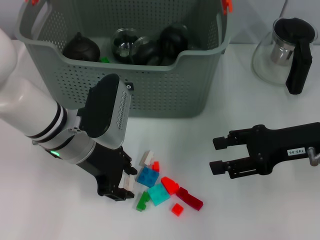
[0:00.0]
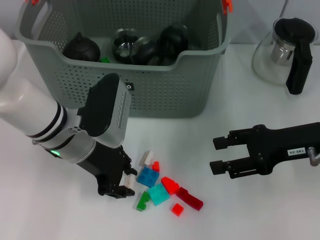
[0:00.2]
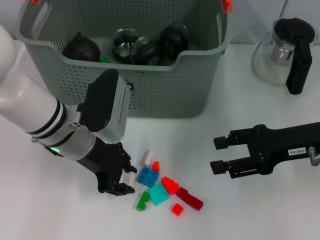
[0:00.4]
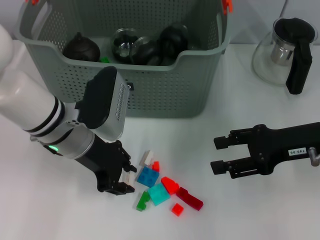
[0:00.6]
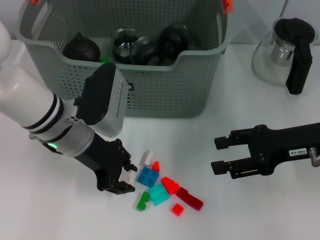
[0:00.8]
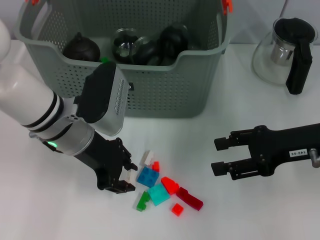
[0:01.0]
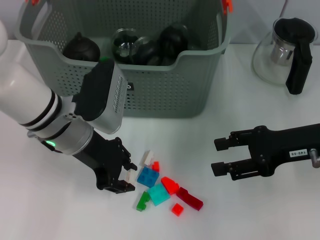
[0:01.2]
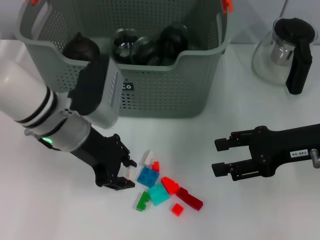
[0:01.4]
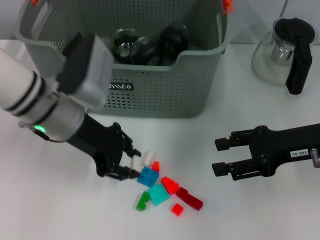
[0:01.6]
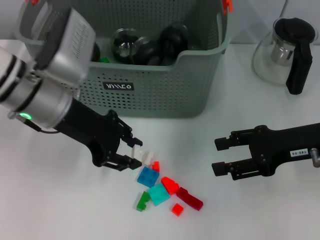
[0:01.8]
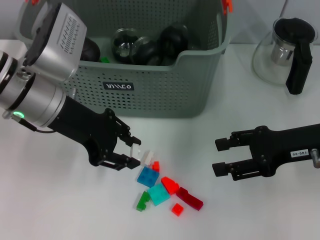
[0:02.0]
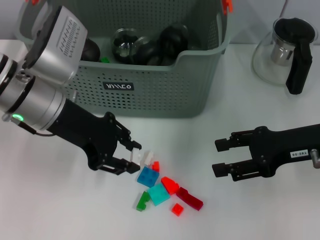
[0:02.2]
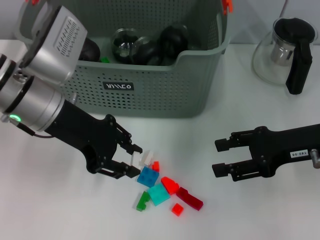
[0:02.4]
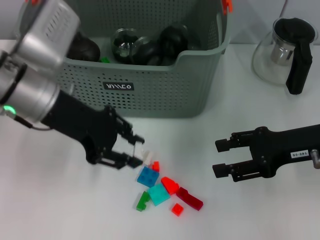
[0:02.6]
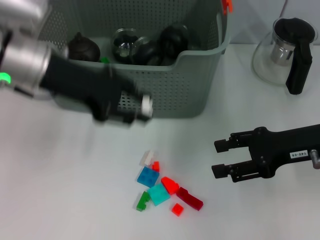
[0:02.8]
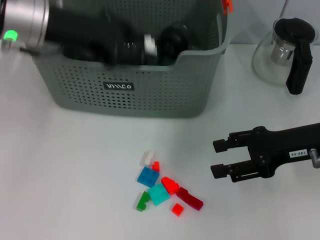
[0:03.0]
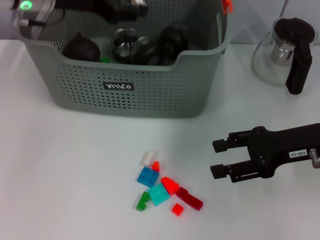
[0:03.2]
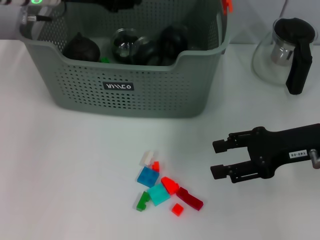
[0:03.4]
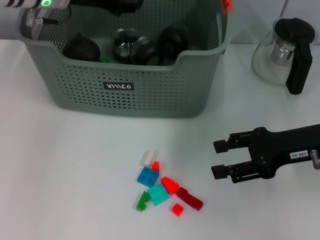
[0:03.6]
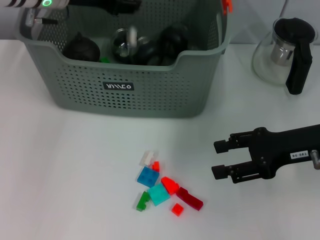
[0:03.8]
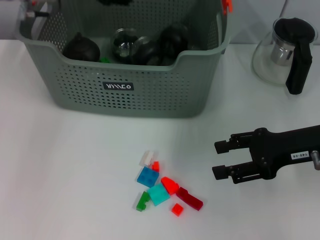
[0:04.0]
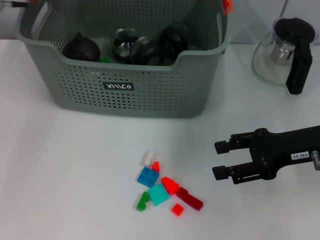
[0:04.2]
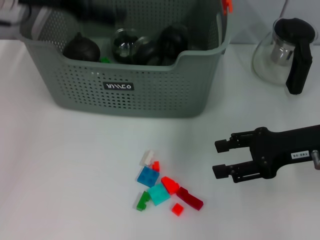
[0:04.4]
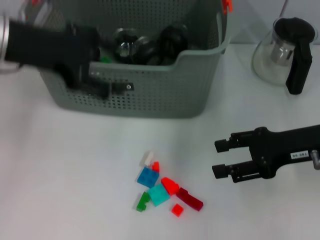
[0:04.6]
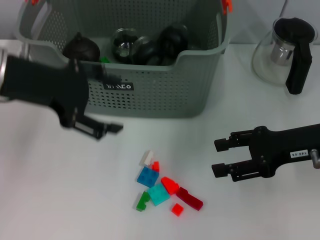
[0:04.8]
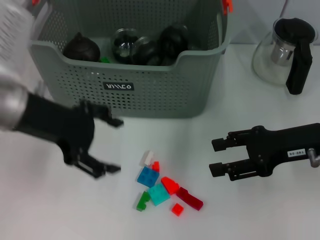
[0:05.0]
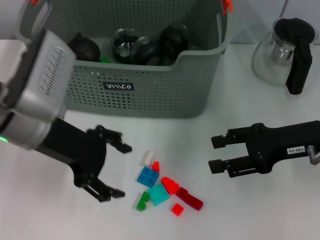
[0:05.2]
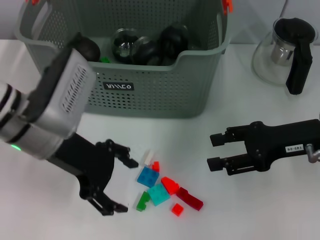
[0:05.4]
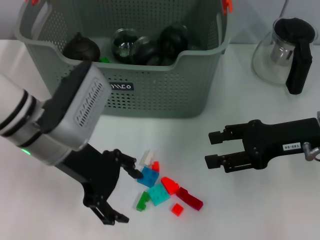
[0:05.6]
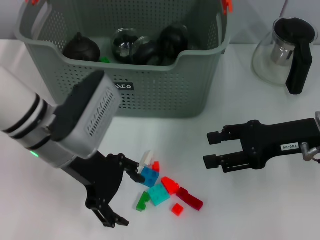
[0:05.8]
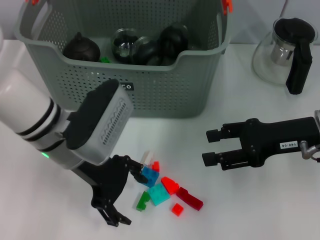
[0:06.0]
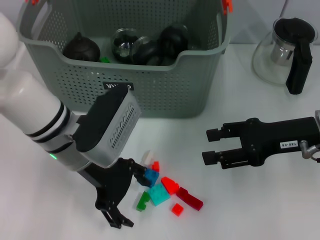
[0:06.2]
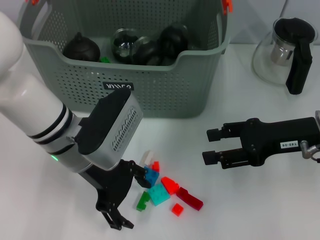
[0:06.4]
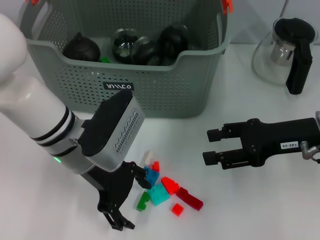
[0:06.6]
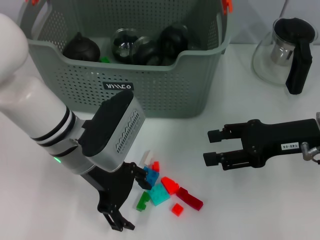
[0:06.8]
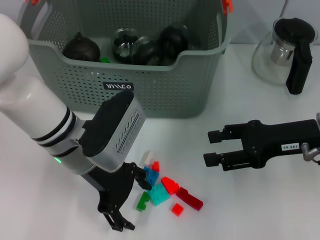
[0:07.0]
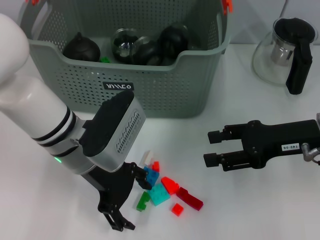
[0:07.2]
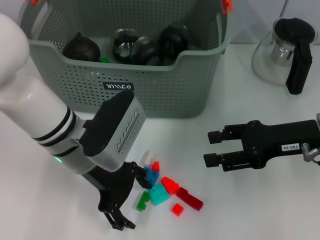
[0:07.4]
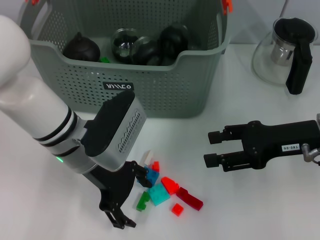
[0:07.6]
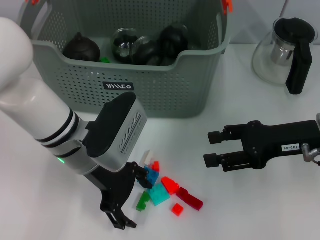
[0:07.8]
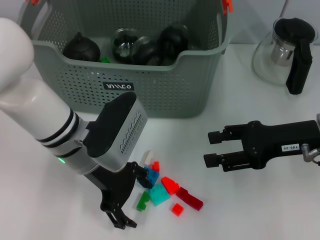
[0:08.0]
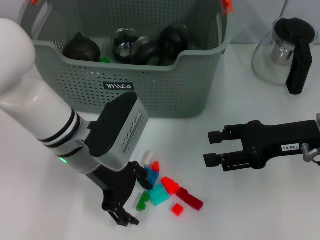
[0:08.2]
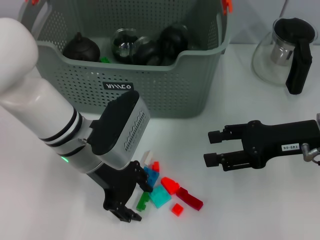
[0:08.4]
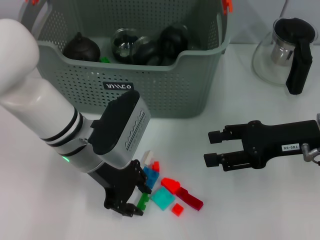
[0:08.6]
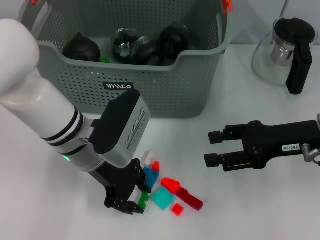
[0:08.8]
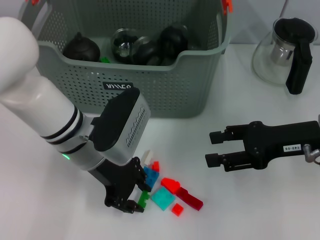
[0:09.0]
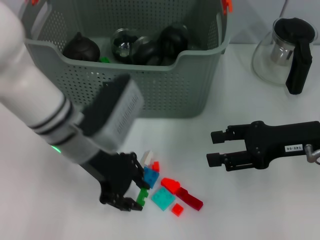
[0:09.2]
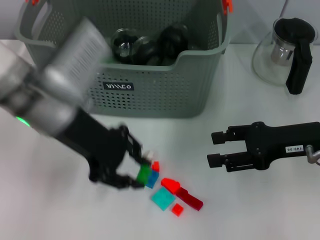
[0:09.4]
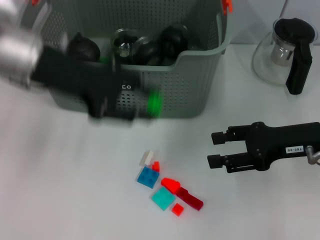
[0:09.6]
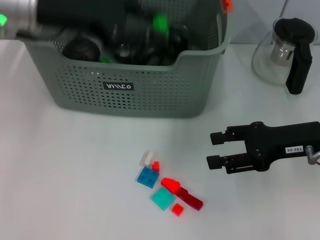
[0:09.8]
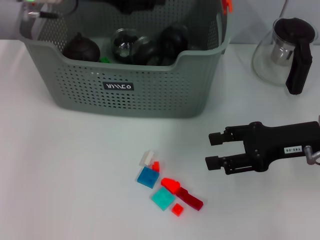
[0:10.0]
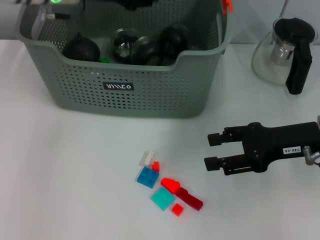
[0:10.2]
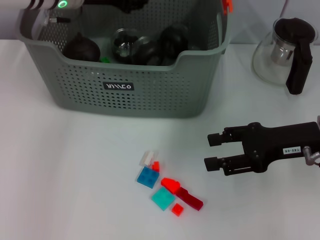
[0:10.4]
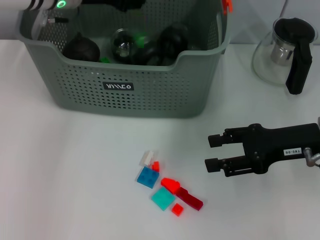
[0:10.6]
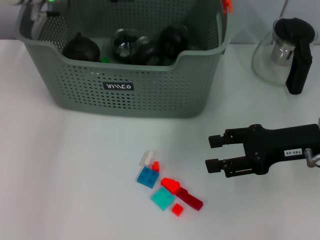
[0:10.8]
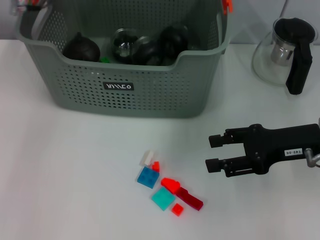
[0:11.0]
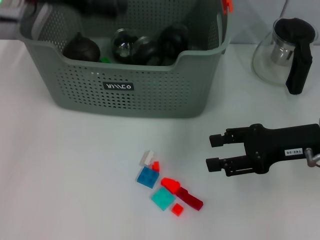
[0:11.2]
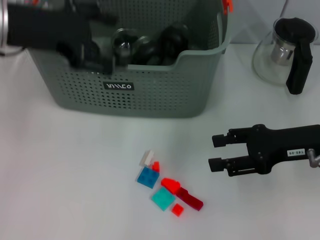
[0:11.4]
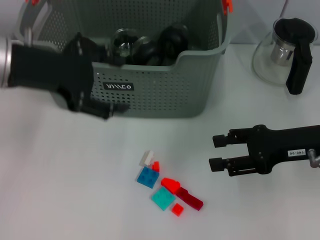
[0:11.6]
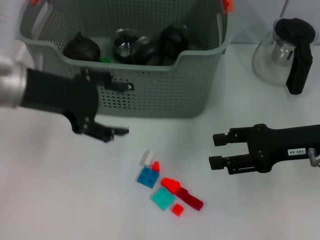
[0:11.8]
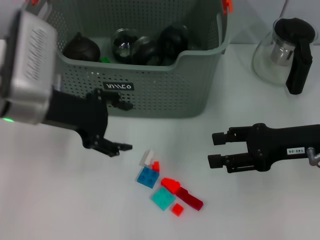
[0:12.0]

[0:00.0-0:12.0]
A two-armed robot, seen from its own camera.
Task of the whole recording: pick up the teacup on the table and place it into the storage bin, pick up the block on the table and place it into the storage bin.
Step, 0:00.2 to 0:03.8: Place the white block in the storage box with left gripper.
Step, 0:04.2 to 0:08.6: Grasp the green block with left gripper.
Step, 0:09.0 to 0:10.6: Place the green block in the storage box with left gripper.
0:00.0 to 0:01.6: The grippers move only a little.
0:01.6 to 0:03.0: The left gripper heads upward, covering roughly 10 cm.
0:03.0 to 0:04.4: The left gripper opens its fingers.
0:04.4 to 0:06.0: The left gripper travels downward, backward and to the right by roughly 20 cm.
0:06.0 to 0:07.6: The grippers make only small movements.
0:07.6 to 0:09.0: The left gripper closes its fingers.
0:09.0 to 0:10.4: The left gripper heads forward and upward, covering approximately 15 cm.
0:10.4 to 0:12.0: The left gripper goes roughly 15 cm backward and downward, and opens.

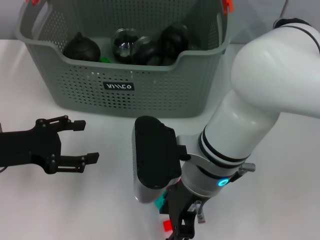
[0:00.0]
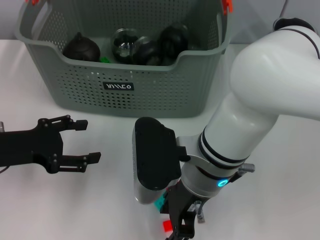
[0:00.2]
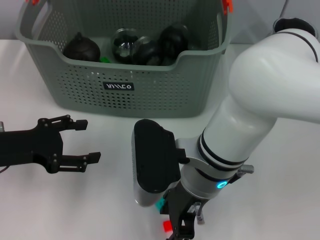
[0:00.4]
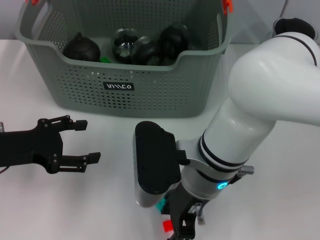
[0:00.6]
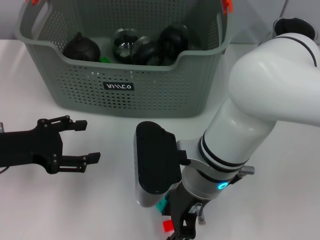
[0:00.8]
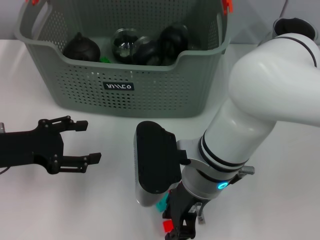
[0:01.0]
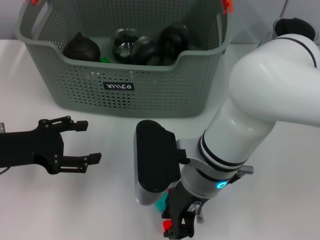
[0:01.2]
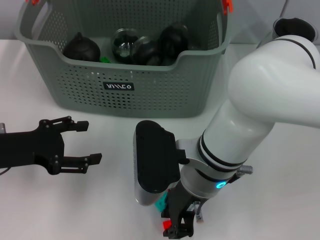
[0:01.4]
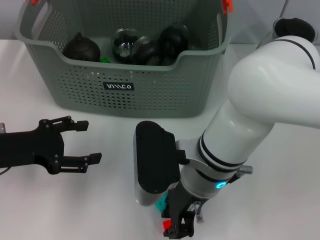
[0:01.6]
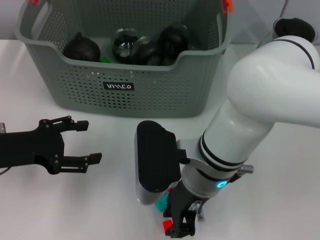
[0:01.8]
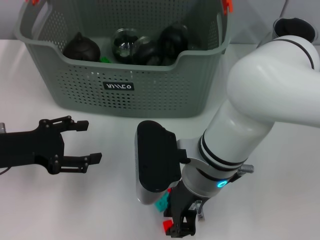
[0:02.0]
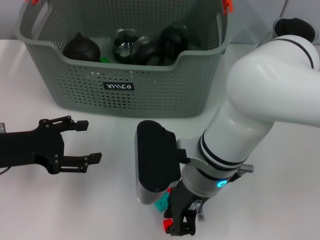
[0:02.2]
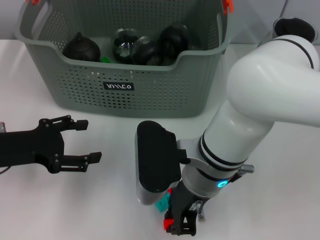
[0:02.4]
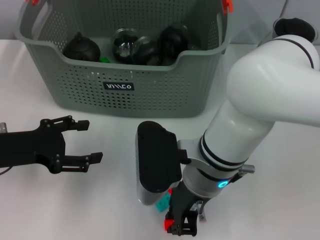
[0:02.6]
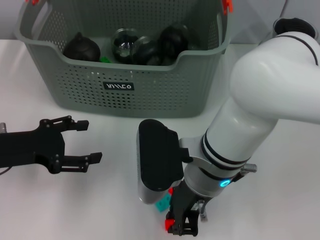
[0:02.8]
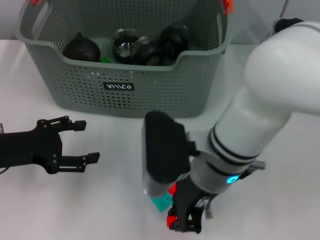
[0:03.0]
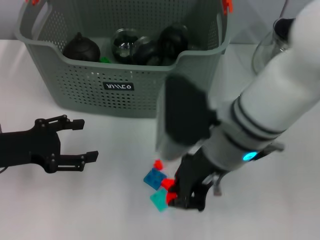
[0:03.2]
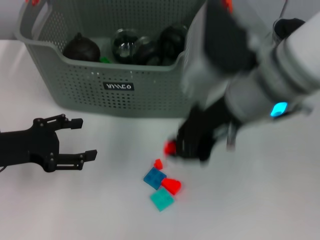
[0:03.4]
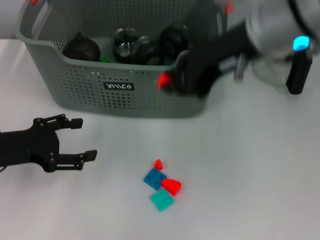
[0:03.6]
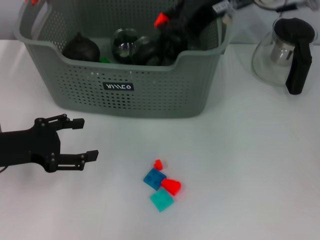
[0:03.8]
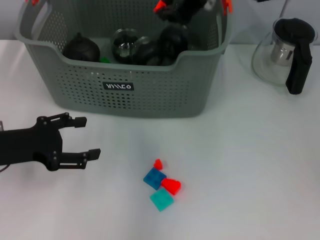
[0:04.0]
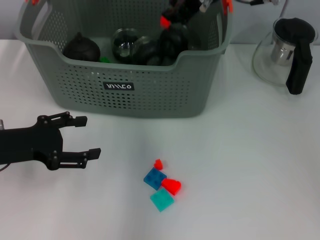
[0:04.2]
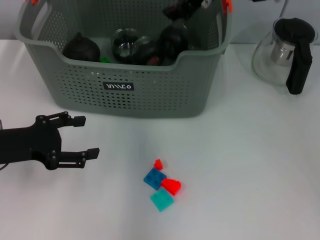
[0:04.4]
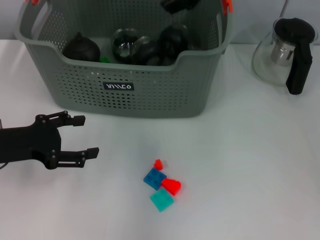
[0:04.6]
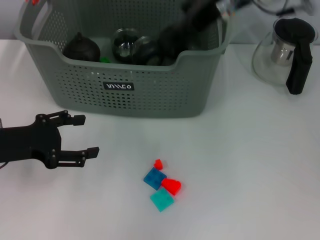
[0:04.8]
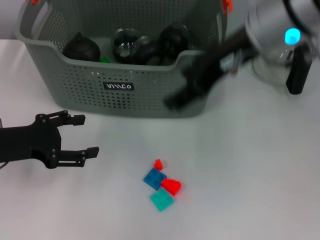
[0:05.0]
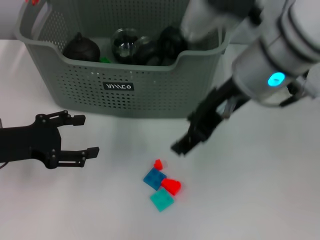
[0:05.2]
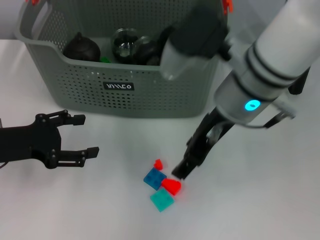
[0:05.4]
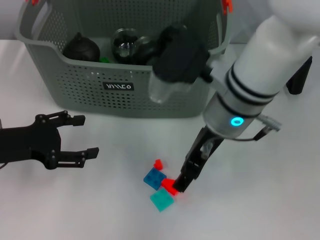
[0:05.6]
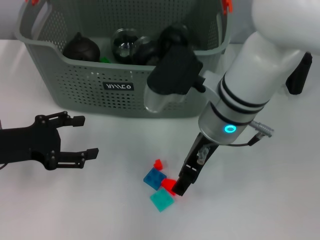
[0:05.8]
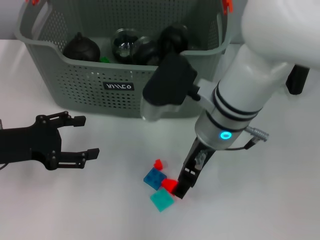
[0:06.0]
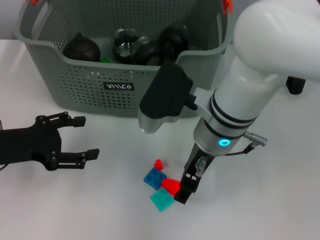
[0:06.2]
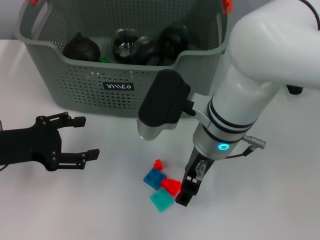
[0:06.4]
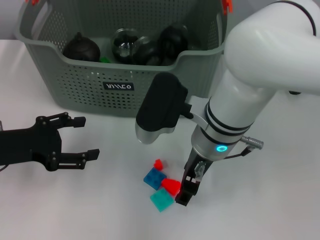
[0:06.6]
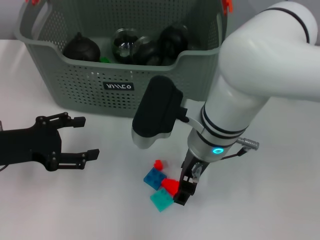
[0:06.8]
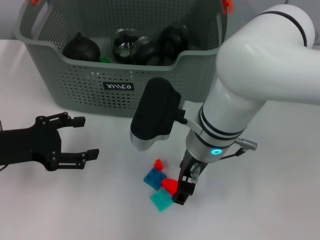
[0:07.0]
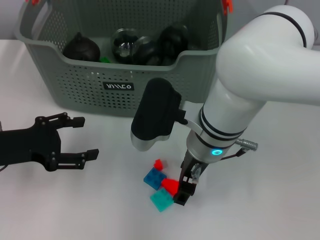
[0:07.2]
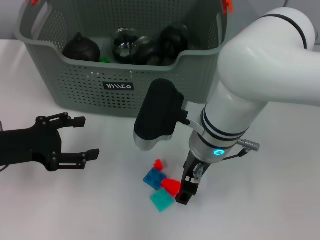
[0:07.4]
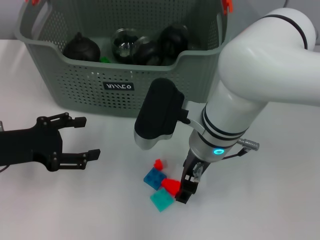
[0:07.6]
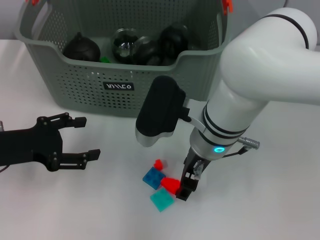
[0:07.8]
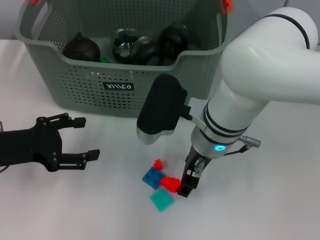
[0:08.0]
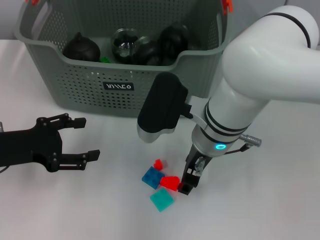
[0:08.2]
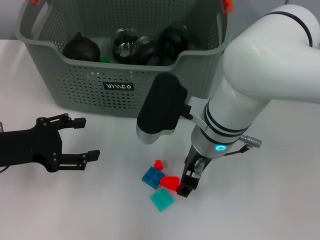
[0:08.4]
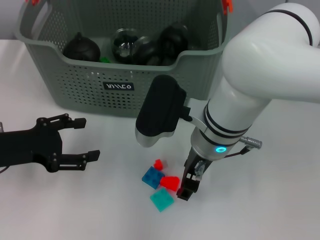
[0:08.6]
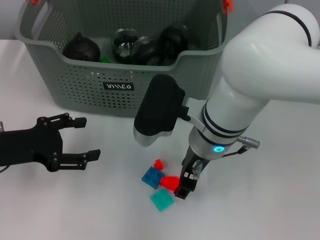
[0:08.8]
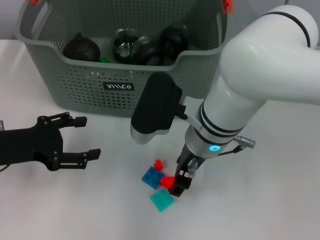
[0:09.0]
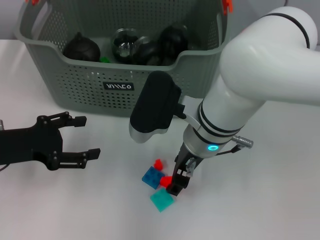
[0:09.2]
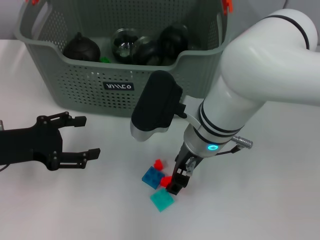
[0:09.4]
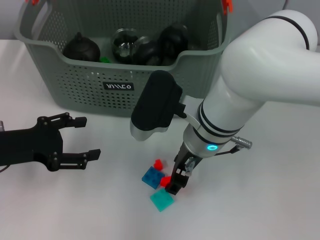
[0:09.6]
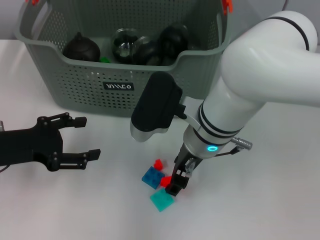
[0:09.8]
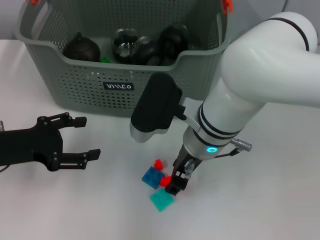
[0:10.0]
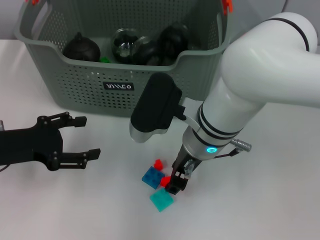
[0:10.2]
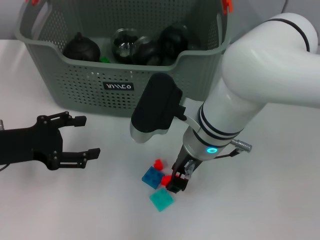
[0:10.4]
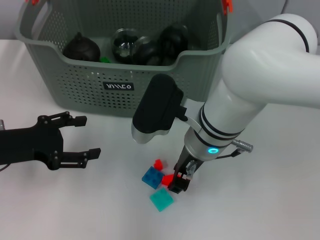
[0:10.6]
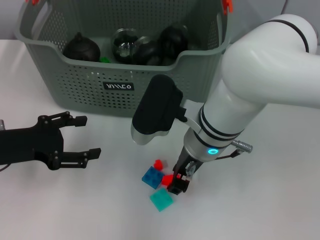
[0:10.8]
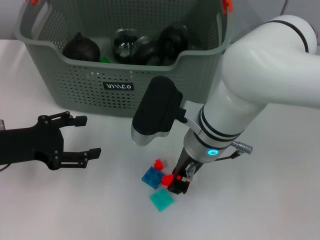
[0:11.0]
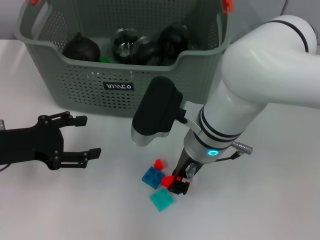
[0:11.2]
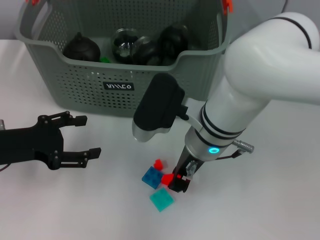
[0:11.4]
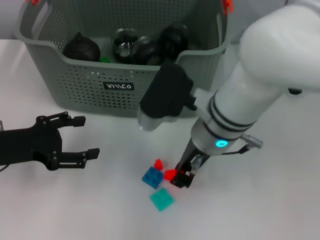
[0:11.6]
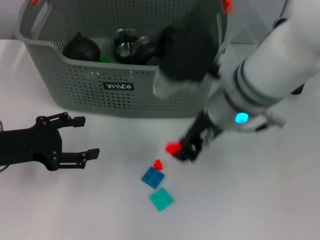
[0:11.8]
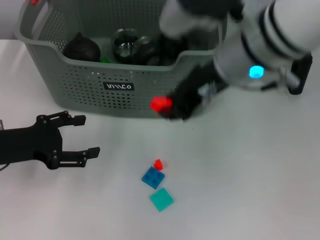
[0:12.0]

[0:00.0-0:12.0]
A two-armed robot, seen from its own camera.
Task of the whole recording: pick up the teacup on the table and place it into the storage bin, pick up the block on the table and place it into the storage bin.
Step, 0:00.0 to 0:02.4: Grasp the orange block with right gripper.
Step, 0:02.6 to 0:04.2: Place the orange block in the storage box with right gripper.
Step, 0:04.6 to 0:11.2: Grasp the orange block with right gripper.
0:00.0 to 0:01.6: The right gripper closes.
0:01.6 to 0:03.0: The grippers make only small movements.
0:03.0 to 0:04.4: The right gripper goes about 20 cm forward and upward.
0:04.4 to 0:06.0: The right gripper shifts roughly 15 cm downward and backward, and opens.
0:06.0 to 0:07.6: The grippers move only a little.
0:07.6 to 0:10.4: Both grippers stay about where they are.
0:10.4 to 0:12.0: The right gripper is displaced upward by approximately 15 cm.
